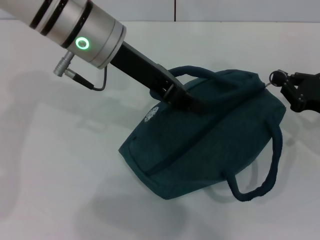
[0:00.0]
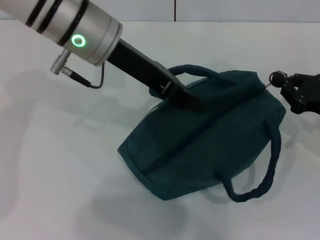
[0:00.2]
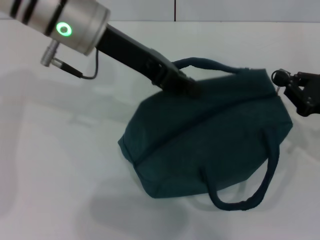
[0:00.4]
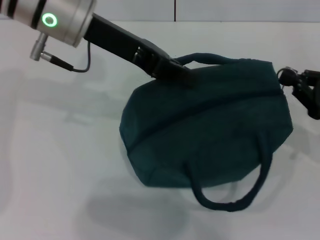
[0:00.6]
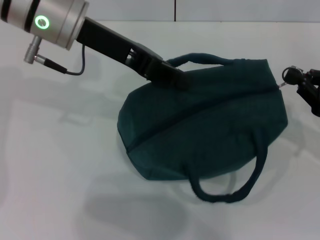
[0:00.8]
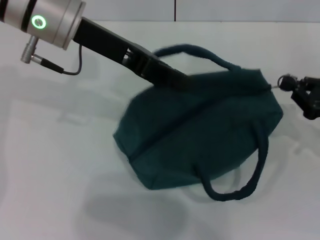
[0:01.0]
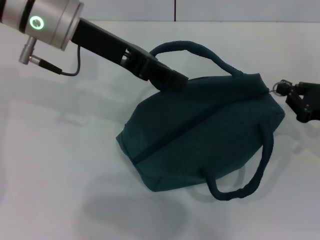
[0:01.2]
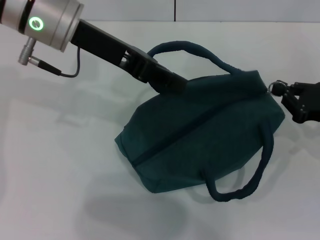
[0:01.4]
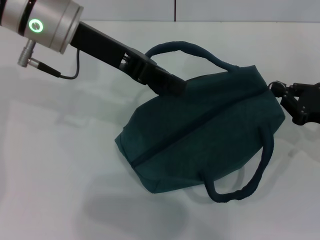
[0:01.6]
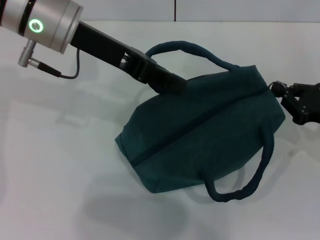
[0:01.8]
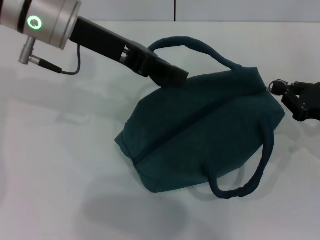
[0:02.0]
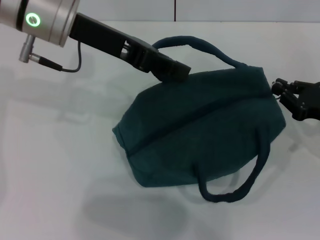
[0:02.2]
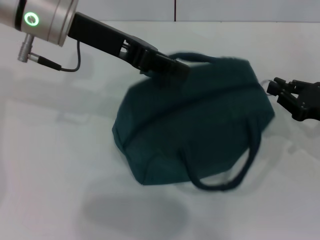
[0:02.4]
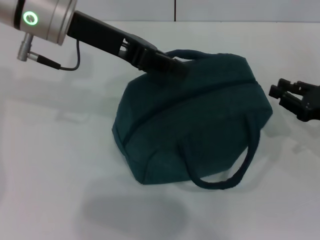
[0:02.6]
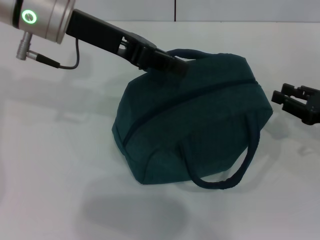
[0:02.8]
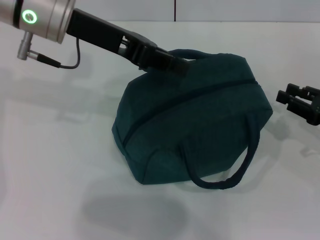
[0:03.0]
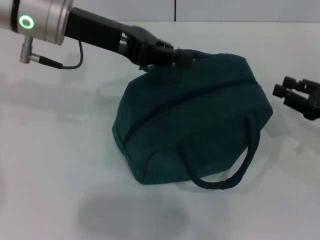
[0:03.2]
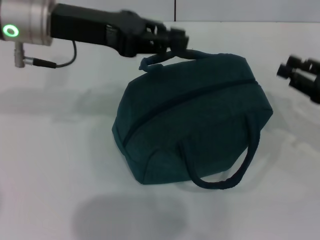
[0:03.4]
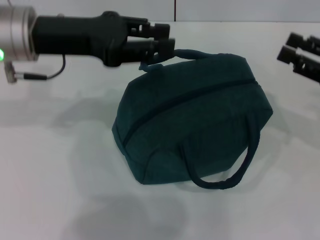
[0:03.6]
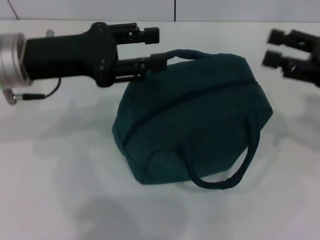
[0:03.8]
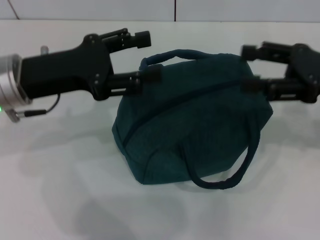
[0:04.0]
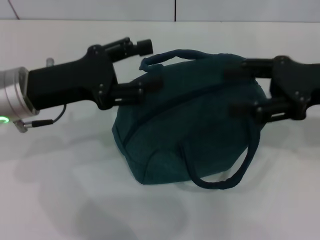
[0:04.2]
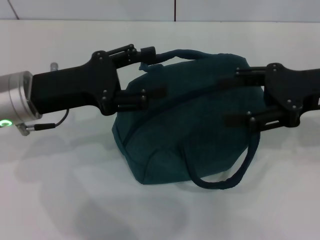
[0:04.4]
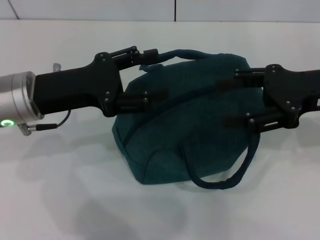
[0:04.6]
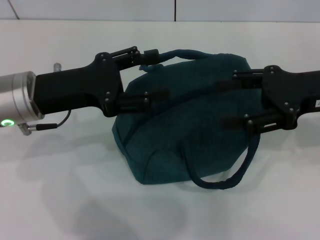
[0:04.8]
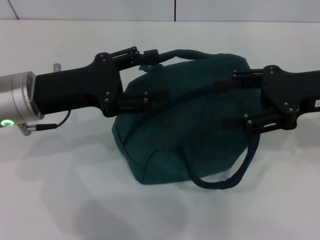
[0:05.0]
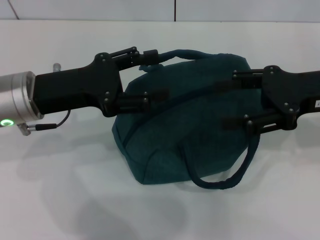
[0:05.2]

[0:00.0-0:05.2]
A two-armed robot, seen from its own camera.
Step, 0:00.0 to 0:02.4: Zip up the lunch bag with your right hand.
Step, 0:02.6 to 0:03.2: Hold the lunch bag with your left hand.
0:00.0 to 0:01.8: The grippers stay close to where they were, moving slightly.
0:01.8 to 0:03.4: The right gripper opens.
0:03.4 to 0:05.2: The left gripper shifts approximately 10 cm downward and backward, and opens up, while the right gripper is displaced upward and to the left by approximately 10 cm, and opens.

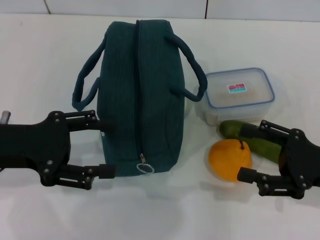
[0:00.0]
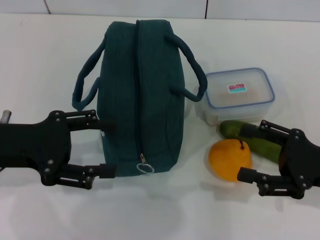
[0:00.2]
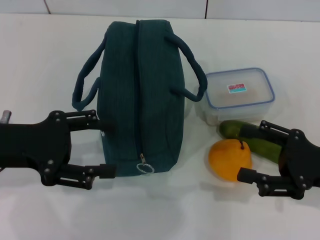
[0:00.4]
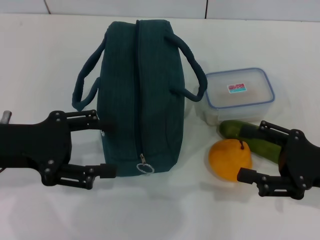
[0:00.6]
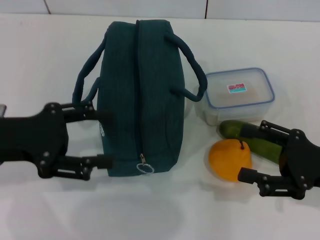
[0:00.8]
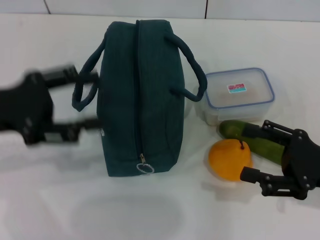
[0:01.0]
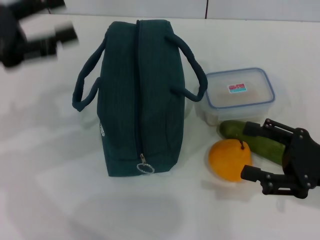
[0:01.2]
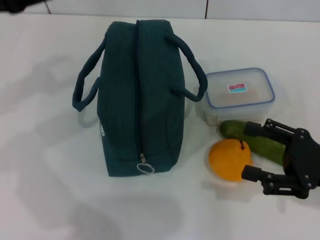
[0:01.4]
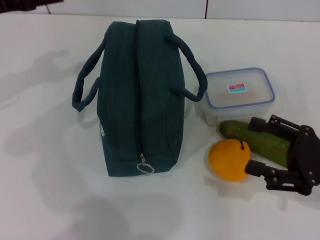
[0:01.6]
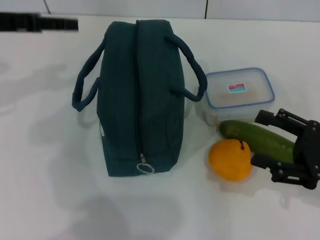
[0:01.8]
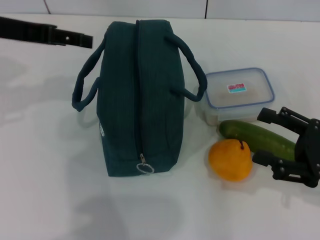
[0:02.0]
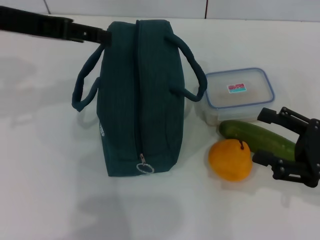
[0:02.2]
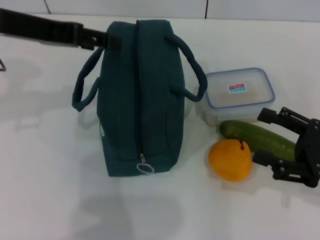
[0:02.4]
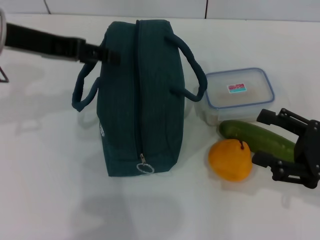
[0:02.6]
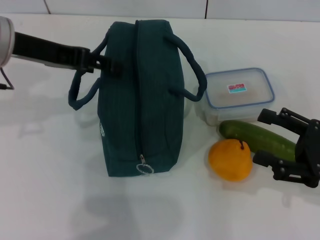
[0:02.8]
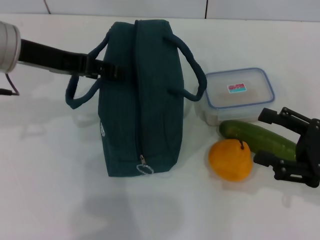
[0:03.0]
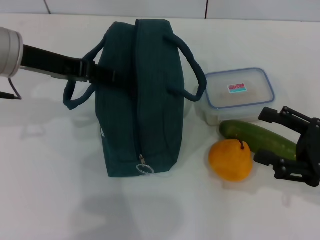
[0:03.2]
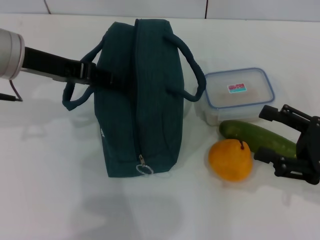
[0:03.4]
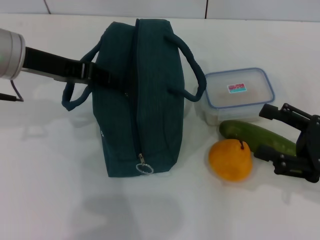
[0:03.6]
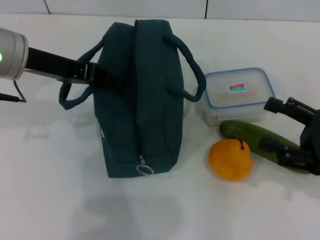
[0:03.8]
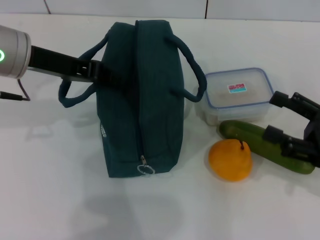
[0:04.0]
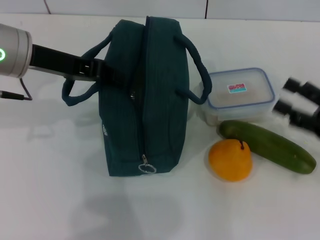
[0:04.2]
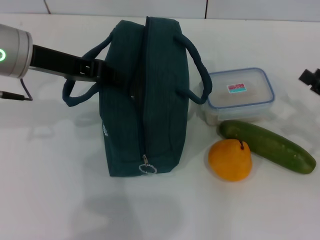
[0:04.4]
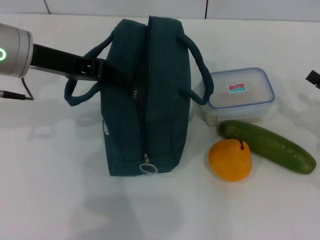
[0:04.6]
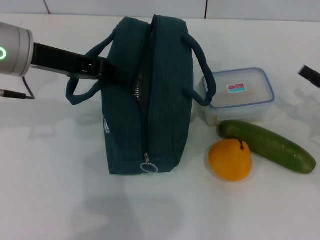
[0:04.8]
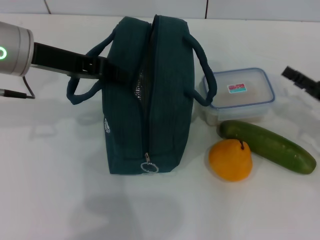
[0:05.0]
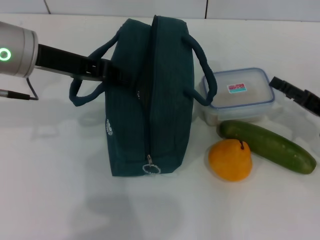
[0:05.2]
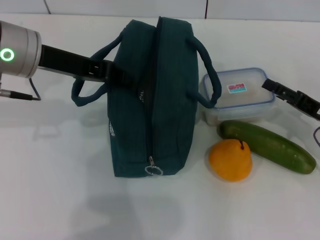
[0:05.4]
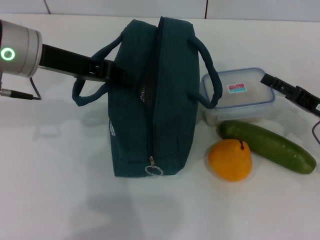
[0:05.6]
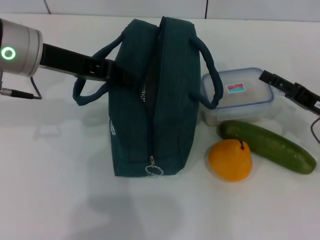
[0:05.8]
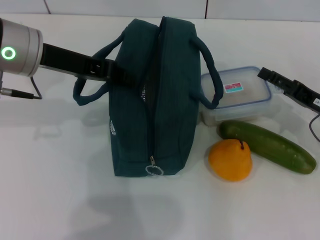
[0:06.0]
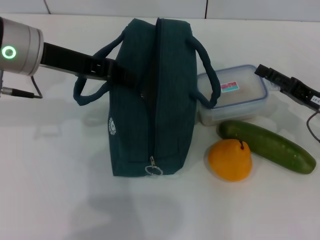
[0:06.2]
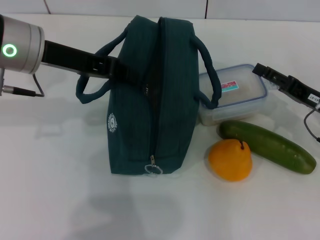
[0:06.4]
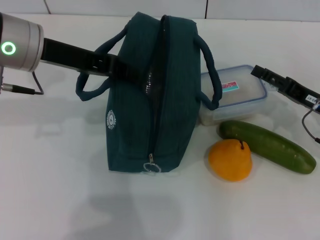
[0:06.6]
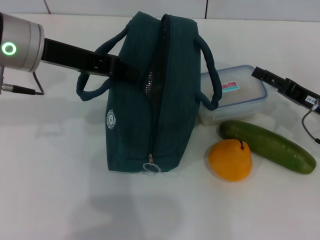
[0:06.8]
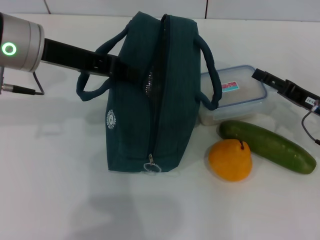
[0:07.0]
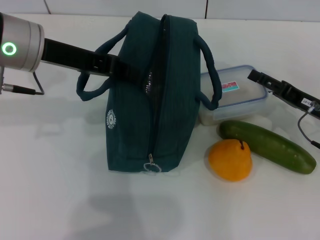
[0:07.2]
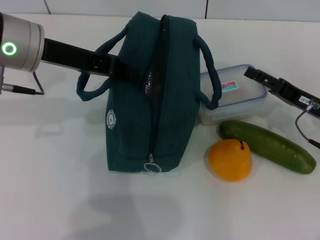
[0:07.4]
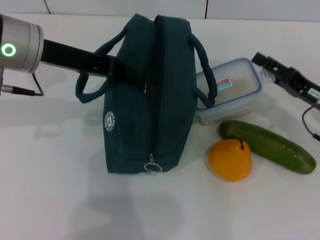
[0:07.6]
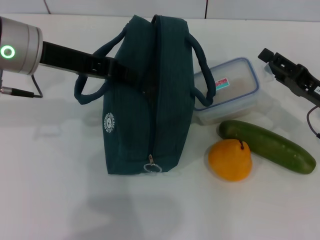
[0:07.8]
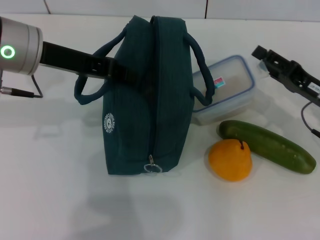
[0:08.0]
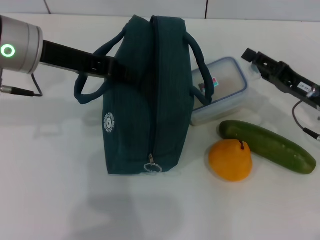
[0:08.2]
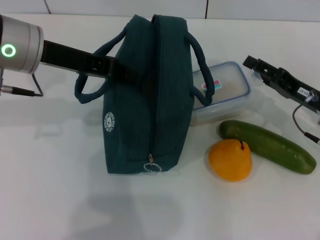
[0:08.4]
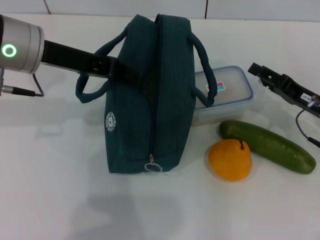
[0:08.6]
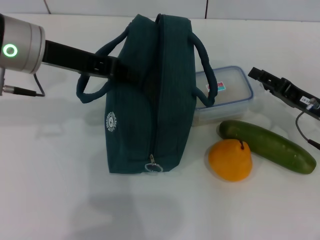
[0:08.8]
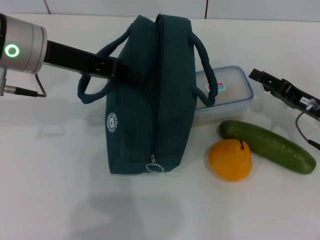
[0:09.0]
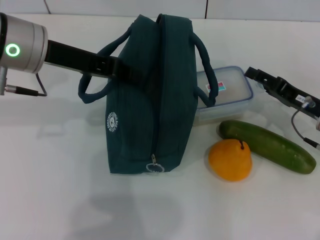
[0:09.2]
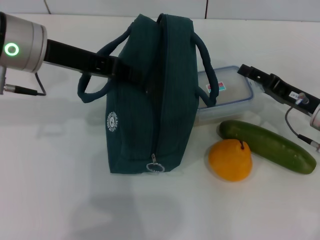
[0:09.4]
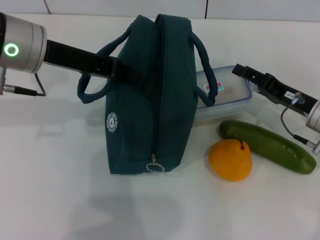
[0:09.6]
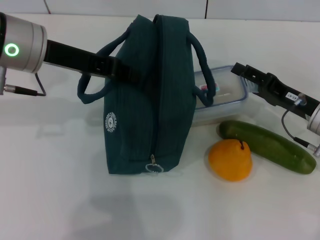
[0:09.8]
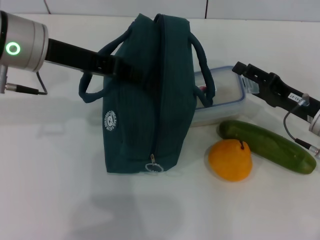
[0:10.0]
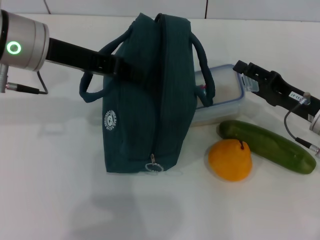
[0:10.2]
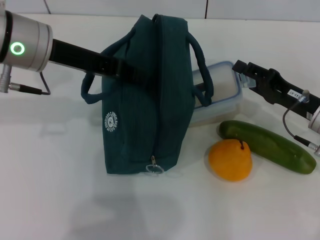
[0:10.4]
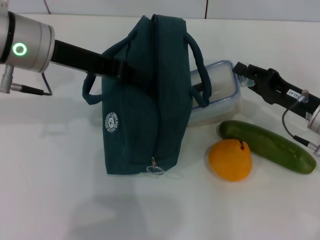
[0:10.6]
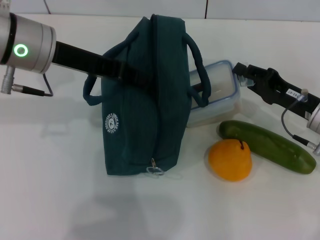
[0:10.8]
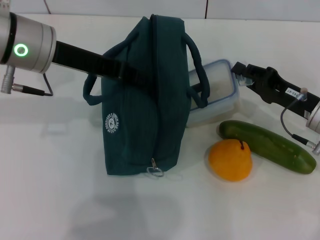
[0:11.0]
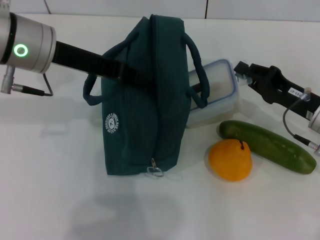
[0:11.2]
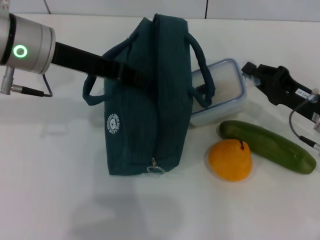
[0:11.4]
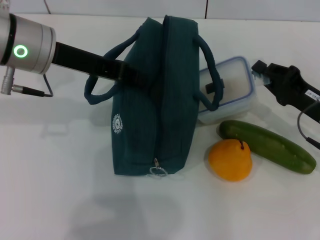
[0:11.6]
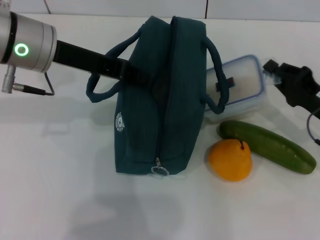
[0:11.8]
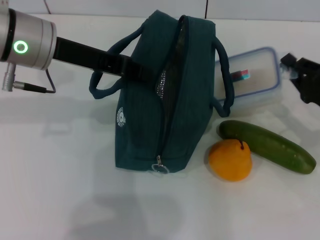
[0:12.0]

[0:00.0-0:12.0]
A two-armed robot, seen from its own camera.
Step, 0:00.0 to 0:03.6: Hold the lunch bag with your left hand.
Step, 0:03.8 to 0:11.0: Pick up the lunch box with your right hand.
0:00.0 to 0:01.6: The left gripper heads forward and upward, covering approximately 15 cm.
0:01.6 to 0:03.0: The left gripper travels to the right by about 10 cm.
0:03.0 to 0:04.4: The right gripper changes place by roughly 5 cm; the left gripper closes up.
0:04.4 to 0:06.0: The right gripper changes place by about 5 cm.
0:06.0 to 0:10.4: The grippers stay close to where they were, moving slightly.
0:10.4 to 0:12.0: The right gripper closes its fingers.

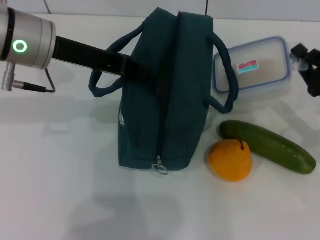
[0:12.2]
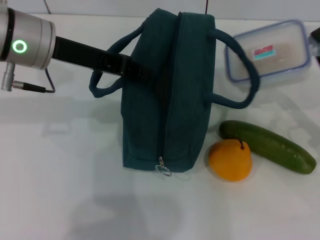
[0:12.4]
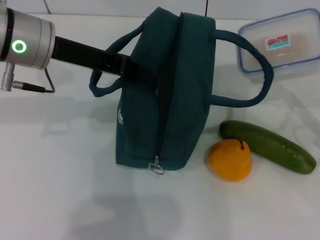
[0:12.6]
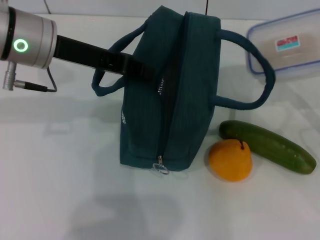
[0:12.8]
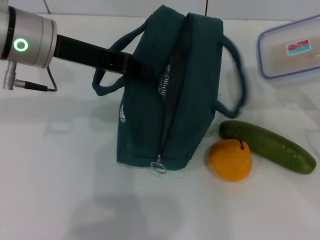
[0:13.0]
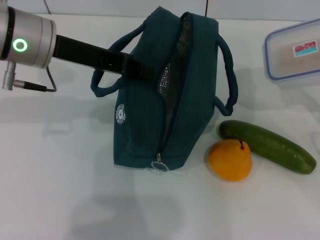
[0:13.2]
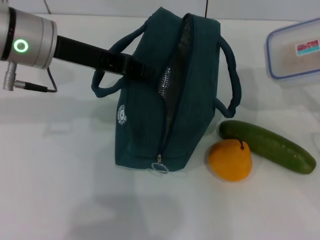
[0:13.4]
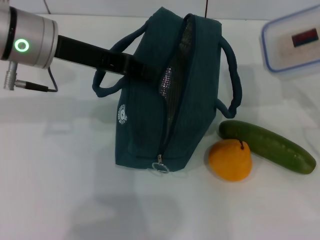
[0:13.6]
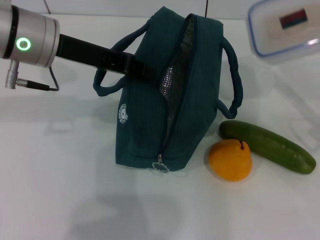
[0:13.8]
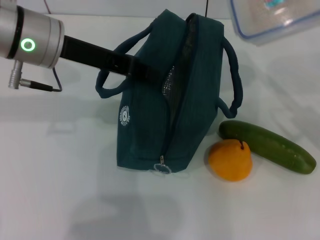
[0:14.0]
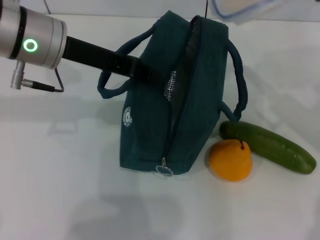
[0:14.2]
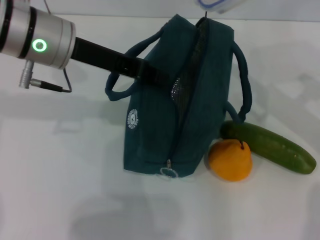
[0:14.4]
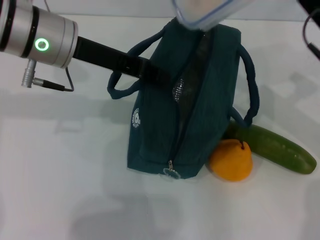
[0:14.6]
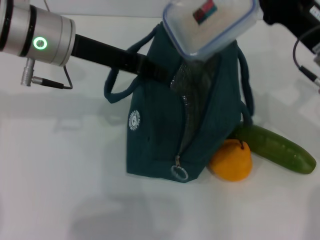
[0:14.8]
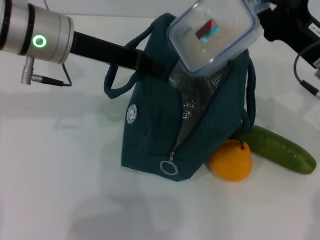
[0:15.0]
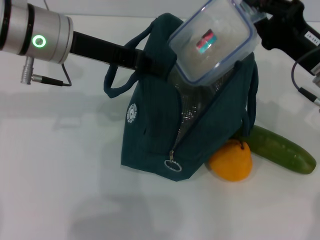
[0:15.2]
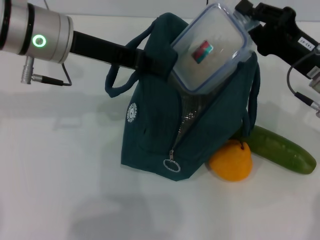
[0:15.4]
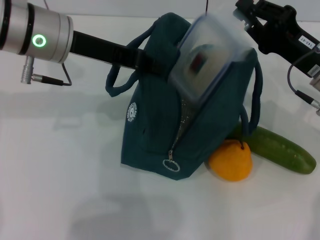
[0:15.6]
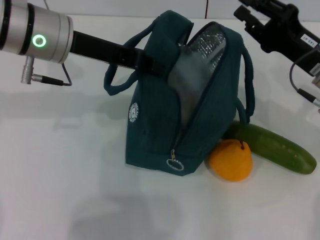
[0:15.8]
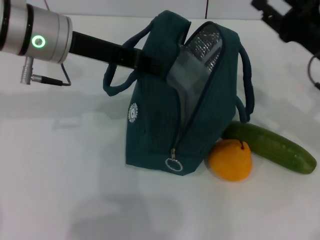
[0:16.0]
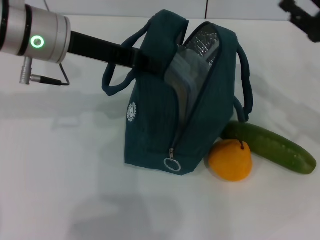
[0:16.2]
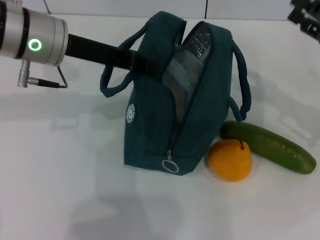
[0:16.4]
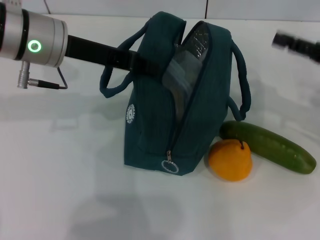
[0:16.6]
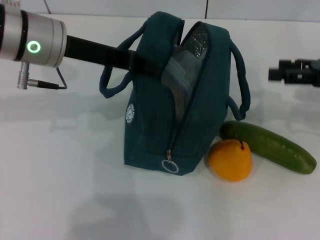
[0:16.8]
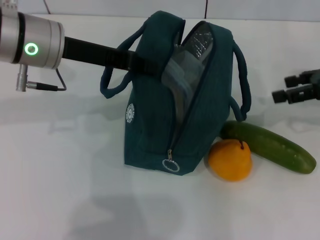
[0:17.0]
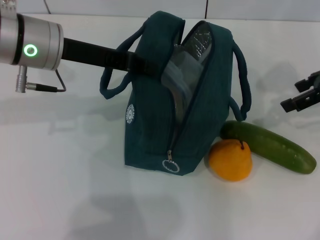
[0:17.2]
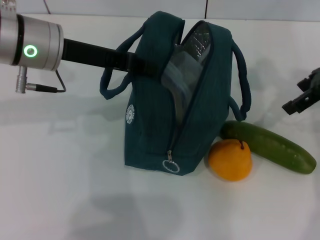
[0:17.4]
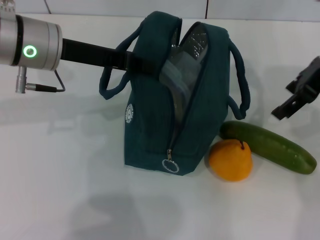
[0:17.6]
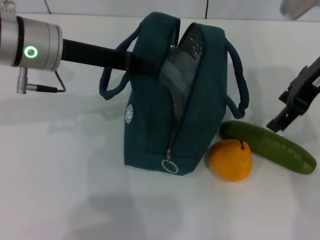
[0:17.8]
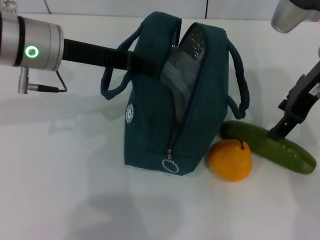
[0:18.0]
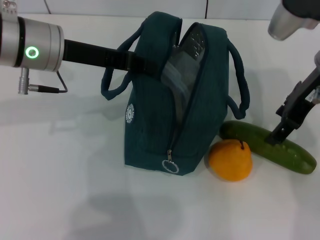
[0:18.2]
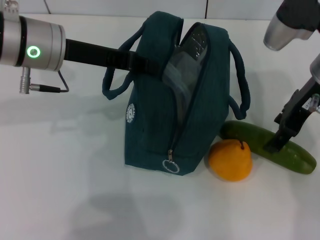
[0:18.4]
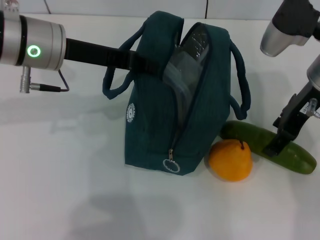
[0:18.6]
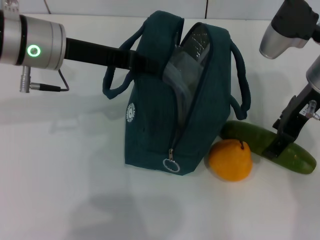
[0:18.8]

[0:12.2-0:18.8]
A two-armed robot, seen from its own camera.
Step, 0:12.2 to 0:16.0: Place the lunch box into the lunch bag with your right hand.
0:12.2 to 0:13.8: The grippers move only a little.
0:13.8 to 0:15.4: The right gripper heads to the left, covering some 10 cm.
0:15.4 to 0:17.2: The right gripper shifts about 10 cm upward and to the right, and opens up.
0:17.2 to 0:18.8: The right gripper goes roughly 10 cm to the left.
